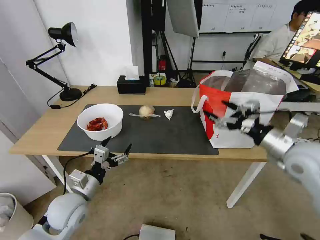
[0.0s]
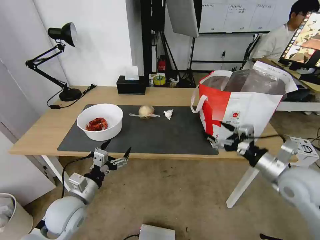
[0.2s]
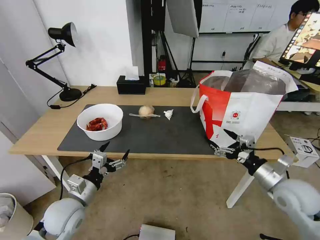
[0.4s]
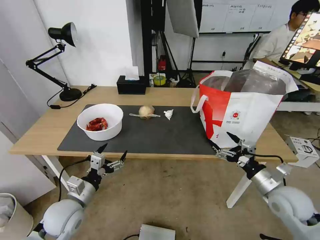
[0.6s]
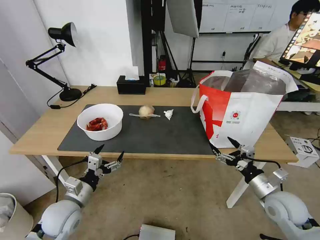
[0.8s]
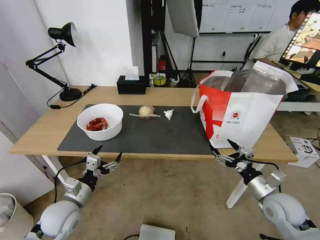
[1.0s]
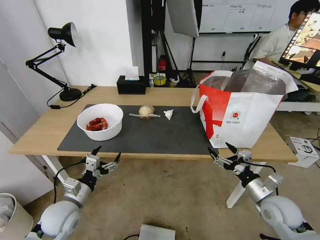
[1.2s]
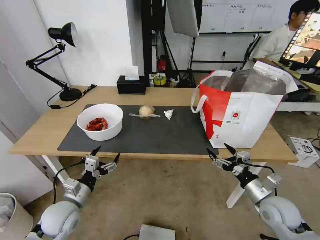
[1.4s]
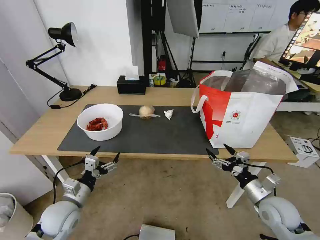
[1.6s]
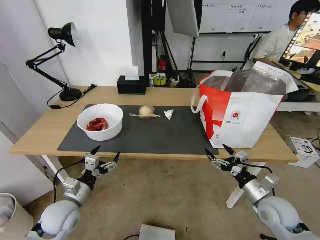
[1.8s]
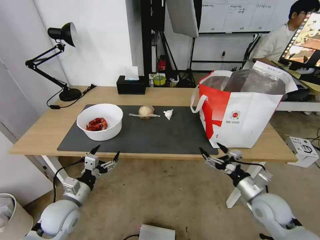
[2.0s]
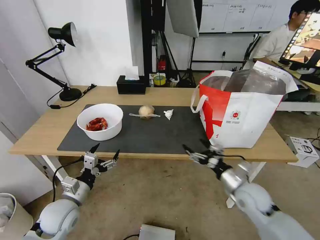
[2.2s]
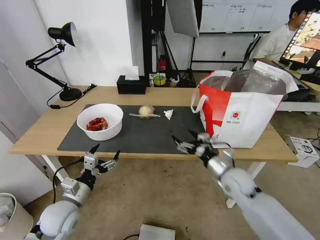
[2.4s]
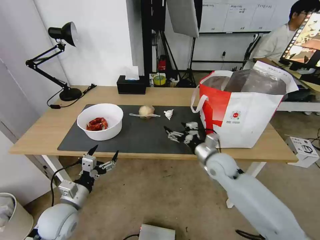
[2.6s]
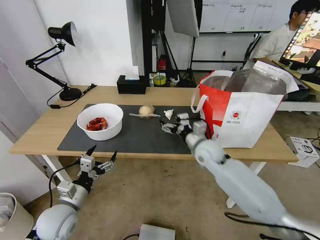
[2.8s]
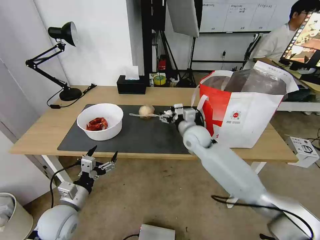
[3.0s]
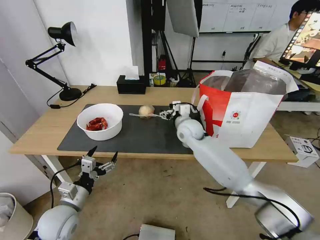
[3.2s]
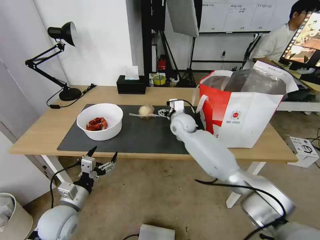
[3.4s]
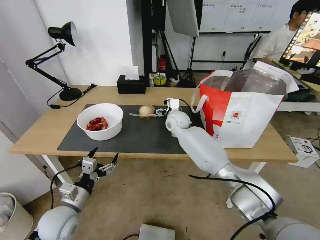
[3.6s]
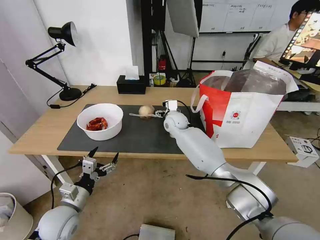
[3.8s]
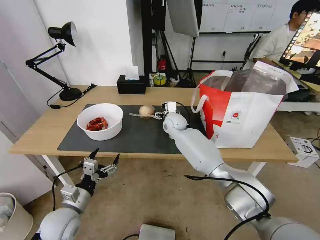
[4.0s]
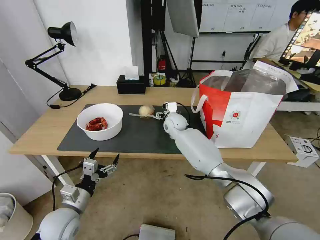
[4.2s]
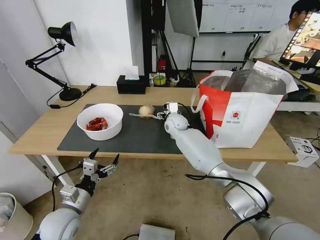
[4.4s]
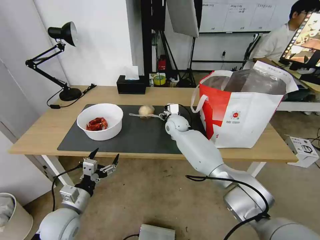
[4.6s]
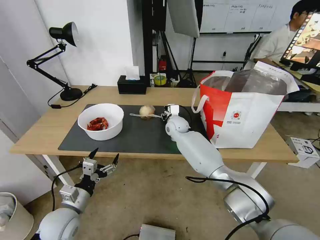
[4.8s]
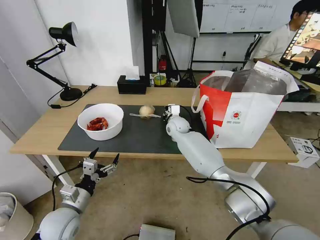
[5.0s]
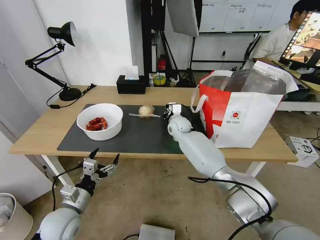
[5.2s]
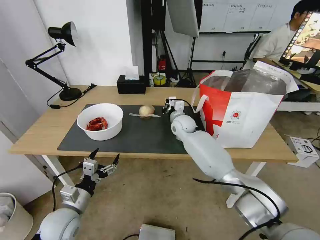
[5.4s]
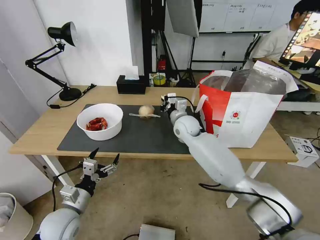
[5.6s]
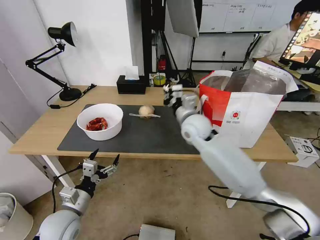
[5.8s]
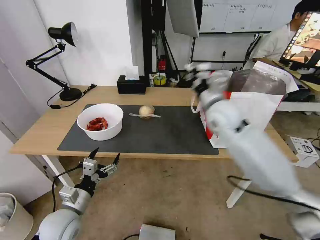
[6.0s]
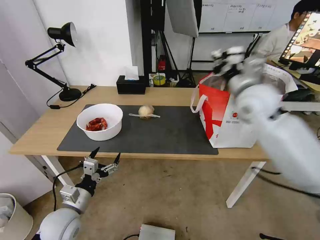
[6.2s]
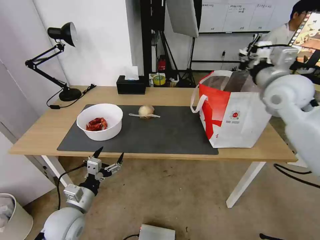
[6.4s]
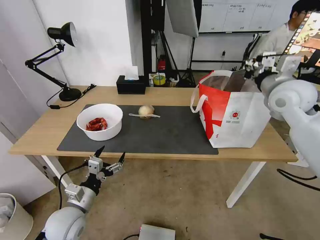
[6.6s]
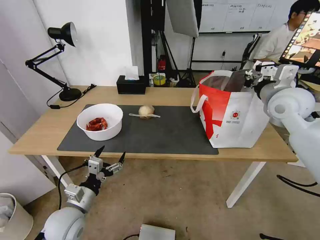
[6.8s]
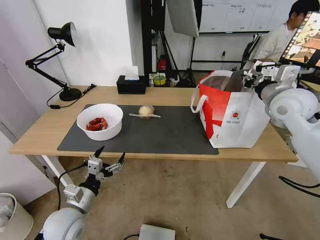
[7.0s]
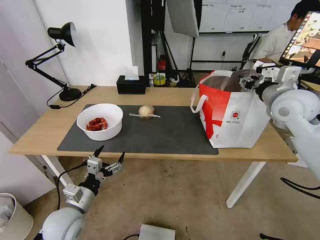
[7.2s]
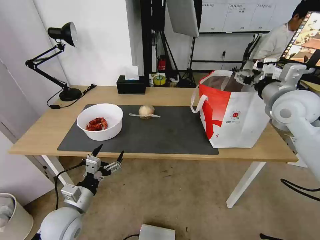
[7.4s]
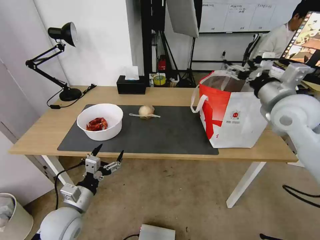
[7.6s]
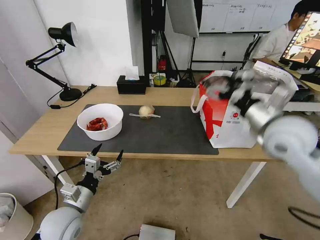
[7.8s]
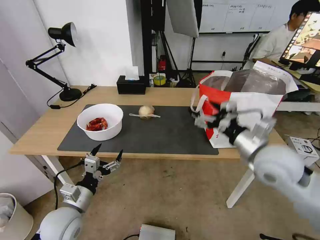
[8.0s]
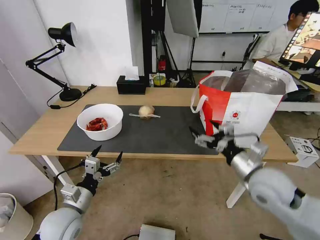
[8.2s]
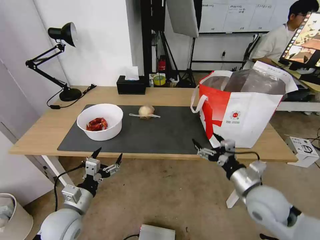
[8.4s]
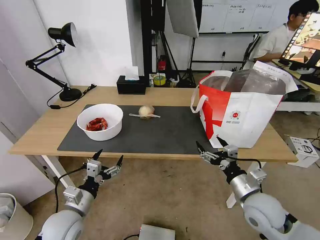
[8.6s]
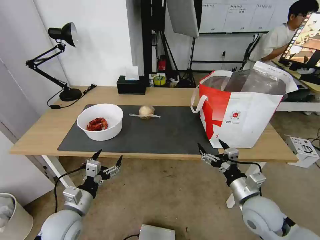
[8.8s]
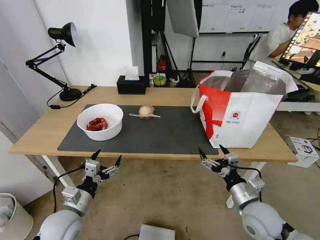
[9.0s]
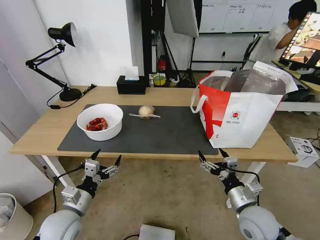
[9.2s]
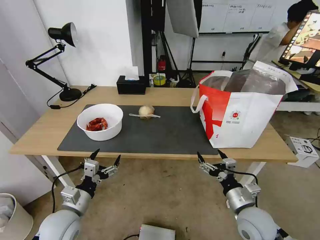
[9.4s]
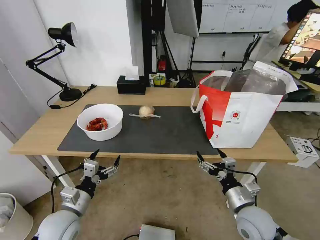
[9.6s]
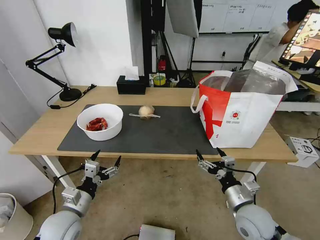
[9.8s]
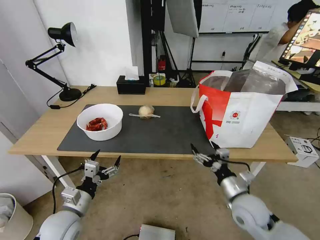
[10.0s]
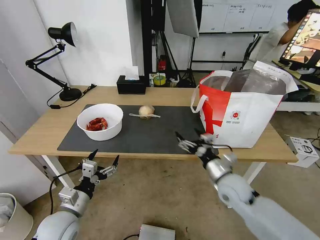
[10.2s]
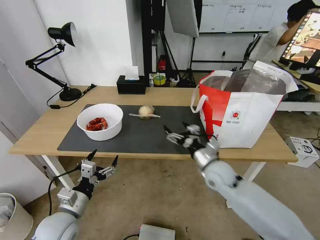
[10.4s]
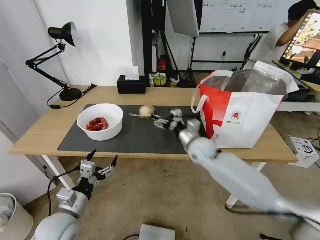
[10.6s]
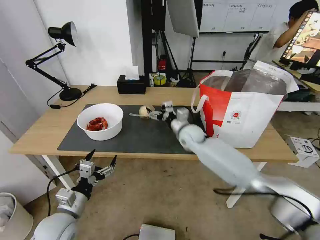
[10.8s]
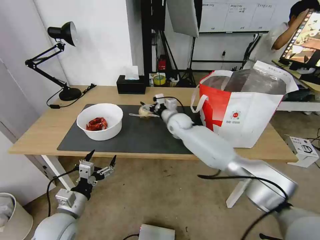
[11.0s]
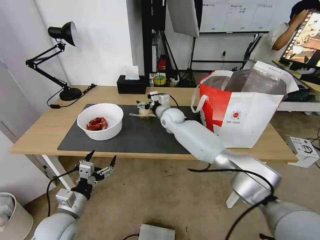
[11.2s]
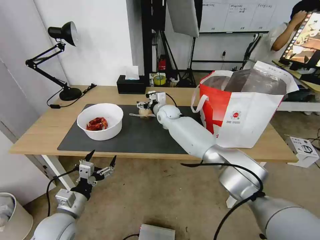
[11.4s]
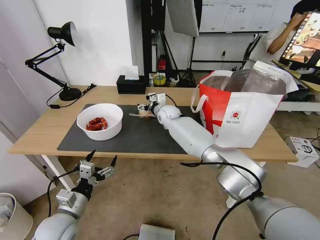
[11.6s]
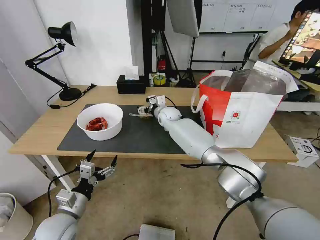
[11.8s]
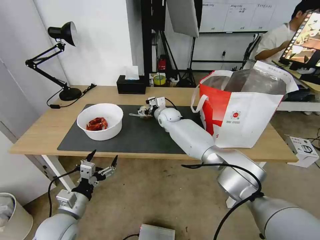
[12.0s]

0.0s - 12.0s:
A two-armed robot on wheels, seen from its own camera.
Task of the whole recording: Pick up the trash from the table and place it into the takeout bag.
0.0s - 1.6s: The right gripper shifts roughly 20 cm downward; the left gripper ends up some 5 cm from where it was.
1.6s - 3.0s: The right gripper is displaced to the left, forward and upward by about 35 cm.
3.0s - 4.4s: The right gripper shifts some 15 cm forward and to the left.
4.4s - 6.0s: The right gripper shifts approximately 25 cm upward, backward and to the right, and closes up.
6.0s - 7.6s: The right gripper shifts approximately 15 cm to the right, and opens its fingers.
7.6s - 9.0s: The right gripper is displaced downward and backward by some 30 cm.
9.0s - 10.4s: The right gripper goes approximately 15 cm forward and to the left.
10.4s - 12.0s: The right gripper travels forward and to the left by some 30 cm.

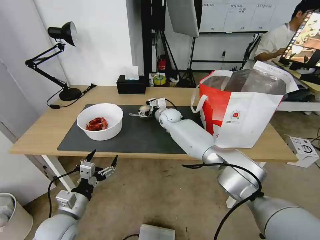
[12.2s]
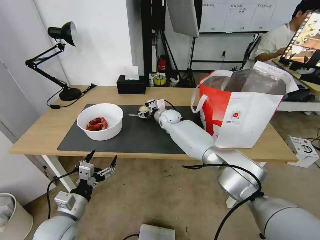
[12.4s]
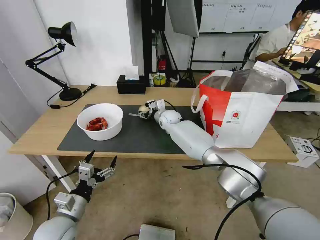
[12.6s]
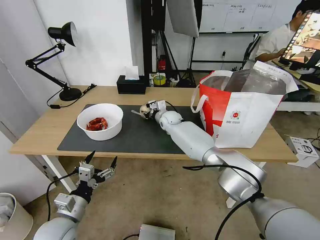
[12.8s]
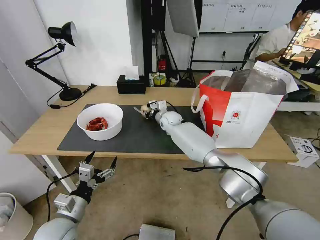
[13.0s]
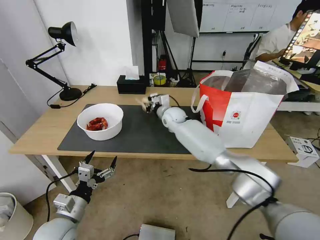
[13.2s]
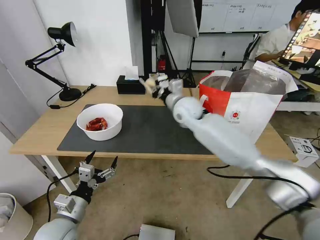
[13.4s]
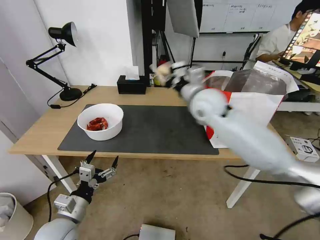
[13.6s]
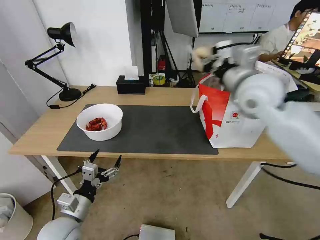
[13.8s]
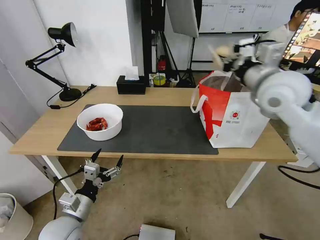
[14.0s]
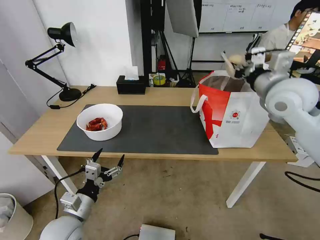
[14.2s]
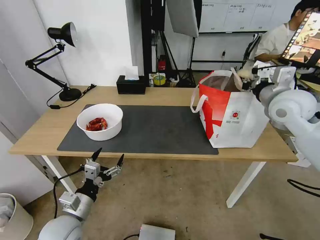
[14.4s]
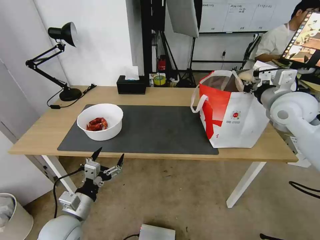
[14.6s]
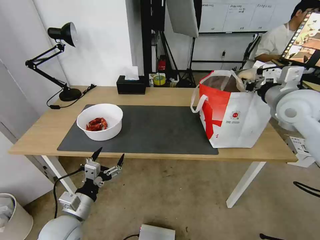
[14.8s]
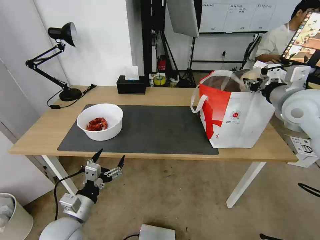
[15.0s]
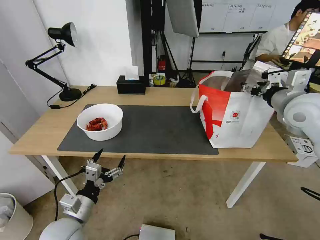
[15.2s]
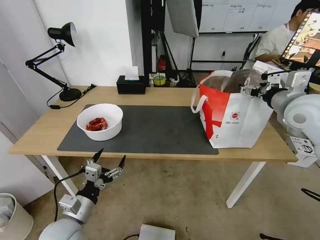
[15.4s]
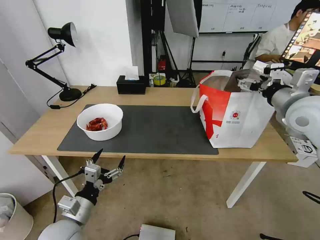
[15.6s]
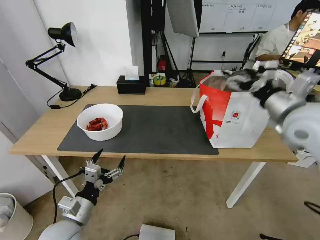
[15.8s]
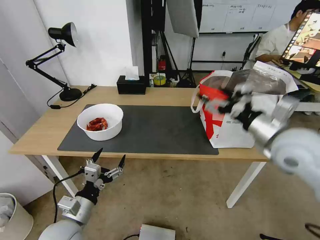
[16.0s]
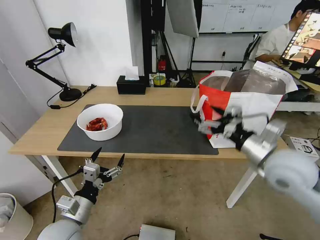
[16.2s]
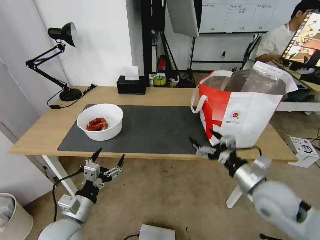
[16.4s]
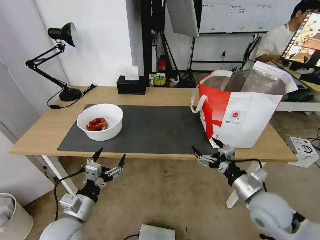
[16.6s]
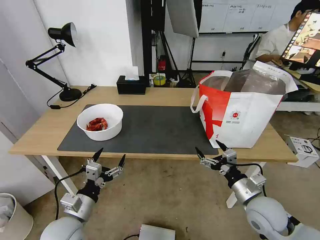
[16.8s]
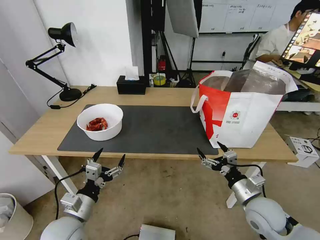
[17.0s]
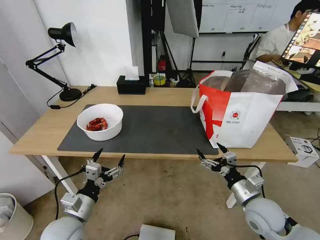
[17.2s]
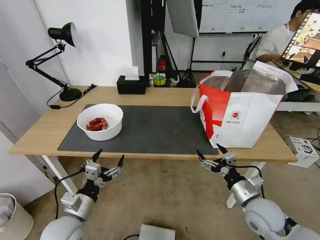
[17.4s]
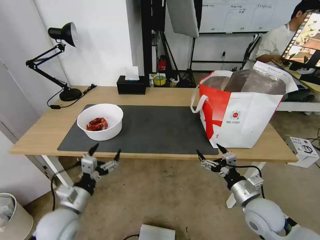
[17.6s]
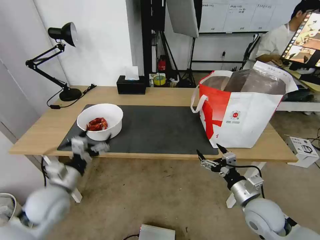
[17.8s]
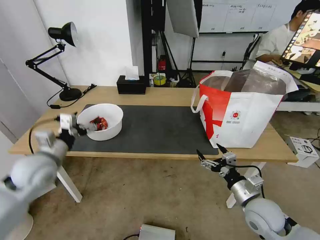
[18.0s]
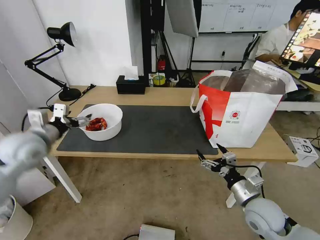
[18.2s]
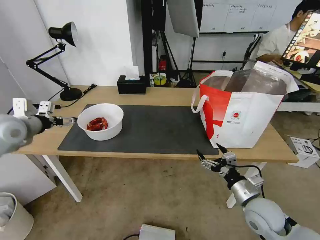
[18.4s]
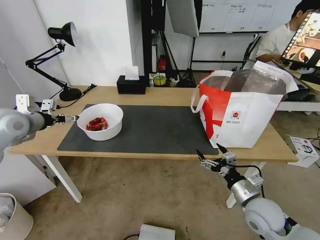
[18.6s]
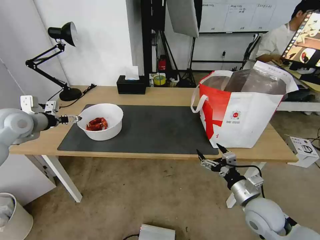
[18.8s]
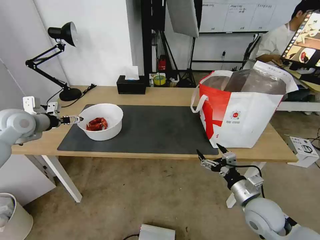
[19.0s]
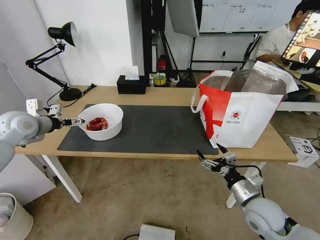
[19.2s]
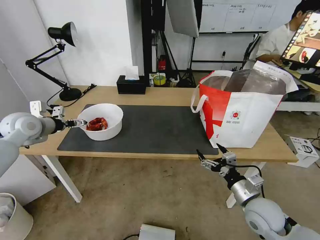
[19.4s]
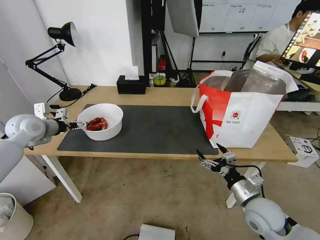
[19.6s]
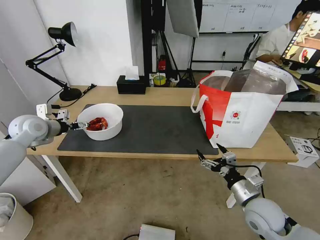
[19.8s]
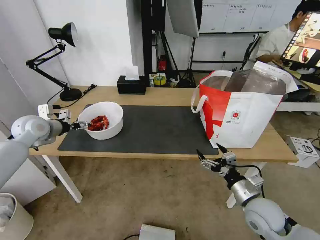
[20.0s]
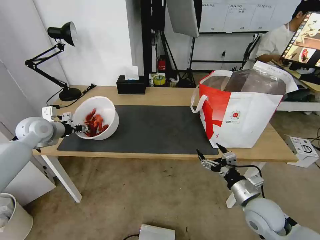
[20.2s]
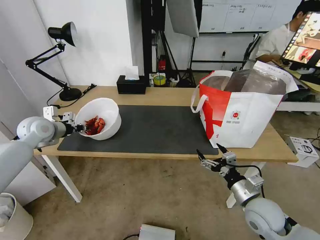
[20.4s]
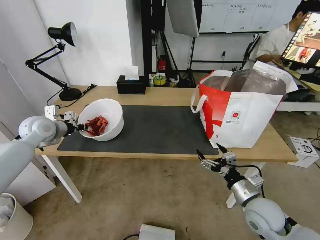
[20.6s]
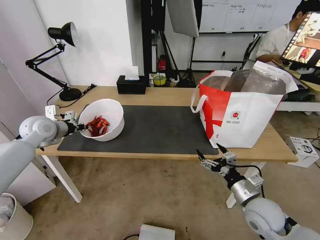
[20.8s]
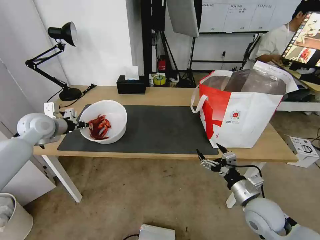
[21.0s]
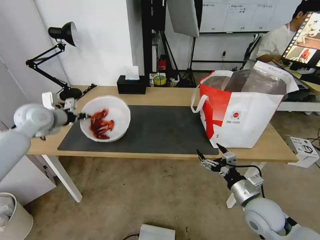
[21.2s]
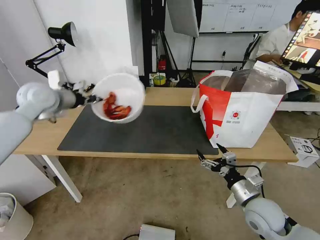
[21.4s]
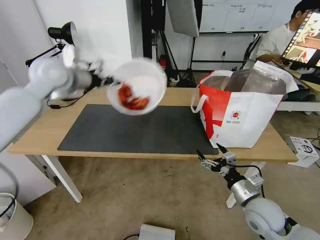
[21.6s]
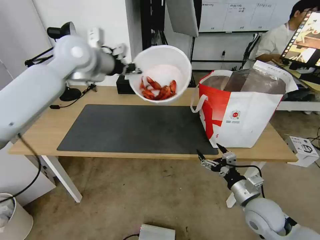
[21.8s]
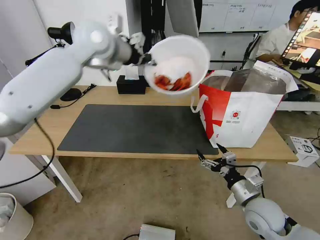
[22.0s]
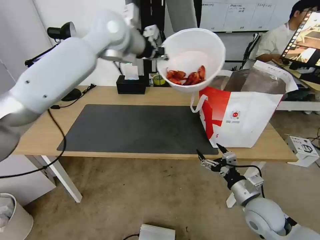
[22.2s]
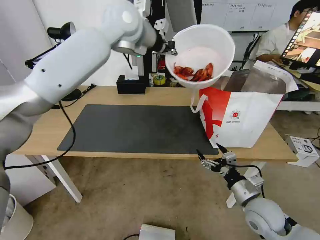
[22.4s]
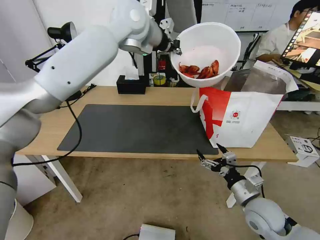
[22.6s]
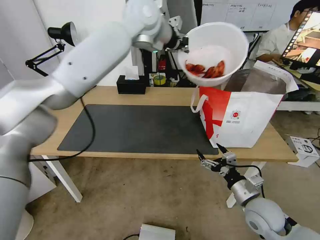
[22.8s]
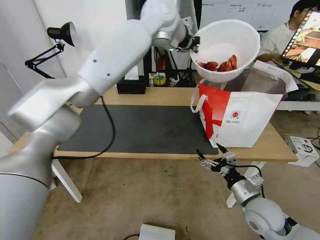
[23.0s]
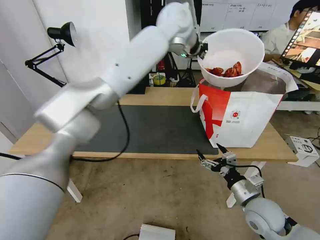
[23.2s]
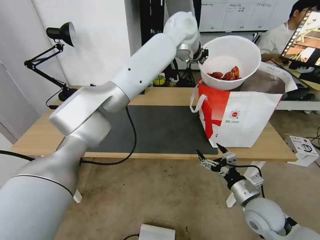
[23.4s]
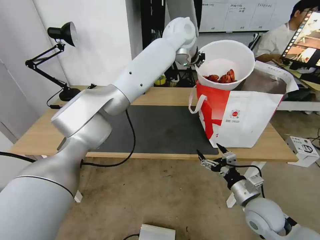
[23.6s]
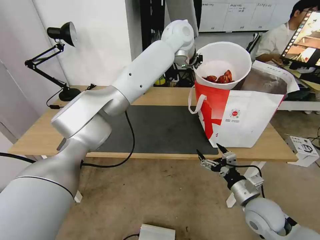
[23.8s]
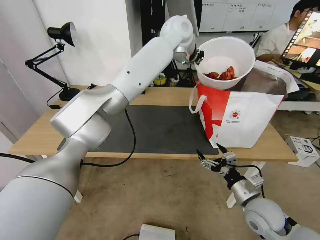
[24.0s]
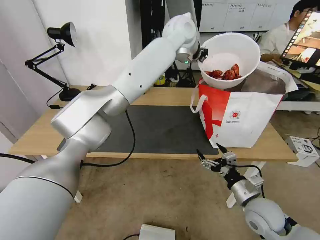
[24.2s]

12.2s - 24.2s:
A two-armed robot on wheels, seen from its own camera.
Task of the whole recording: Pick up the trash from the table and place it into the takeout bag.
12.2s - 13.8s: The right gripper heads upward, backward and to the right, covering some 35 cm, and closes up.
13.8s - 15.2s: The right gripper heads to the right, covering roughly 15 cm, and opens up.
15.2s - 16.6s: The right gripper travels downward and backward by roughly 25 cm.
16.6s - 18.2s: The right gripper goes some 5 cm downward; the left gripper travels forward, upward and to the left by about 30 cm.
18.2s - 19.8s: The left gripper heads forward, covering roughly 10 cm.
19.8s - 21.2s: The left gripper ends up some 5 cm from where it was, and closes up.
21.2s - 22.6s: The left gripper is displaced to the right and upward by roughly 40 cm.
22.6s - 24.2s: The left gripper shifts some 15 cm to the right.
